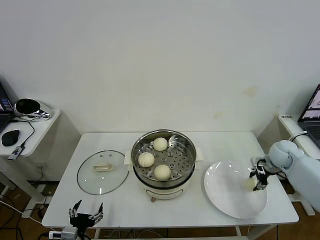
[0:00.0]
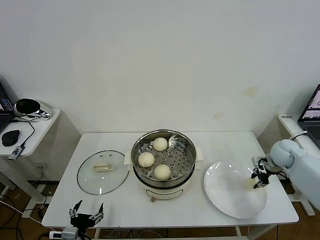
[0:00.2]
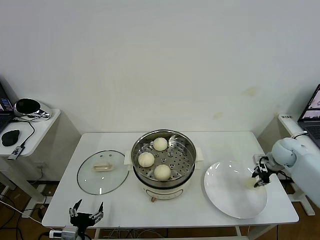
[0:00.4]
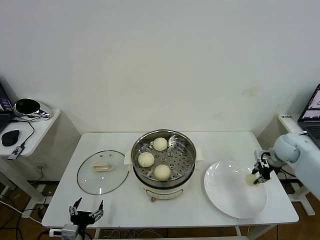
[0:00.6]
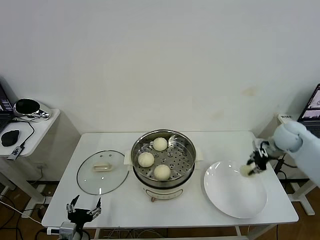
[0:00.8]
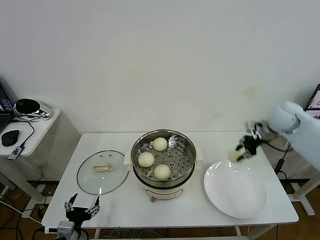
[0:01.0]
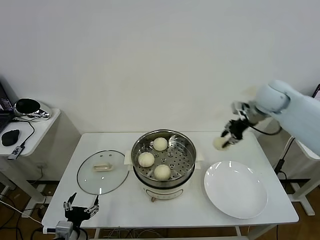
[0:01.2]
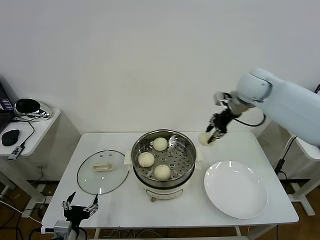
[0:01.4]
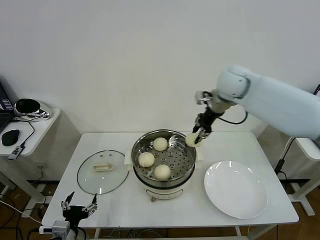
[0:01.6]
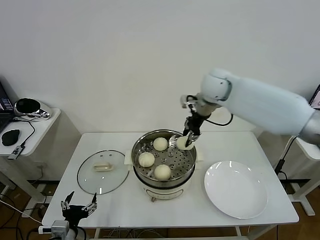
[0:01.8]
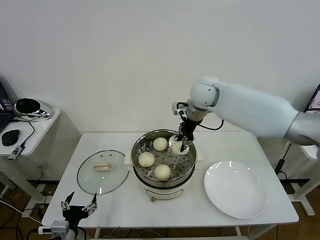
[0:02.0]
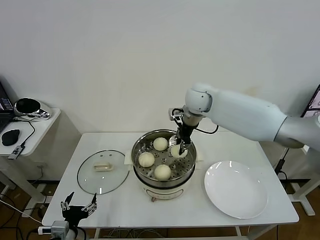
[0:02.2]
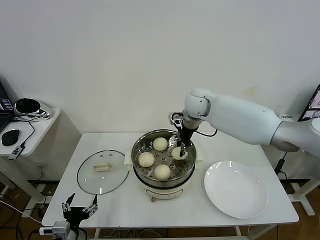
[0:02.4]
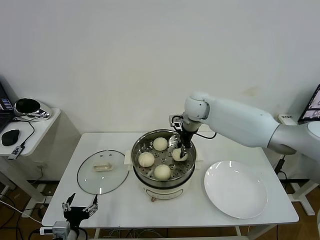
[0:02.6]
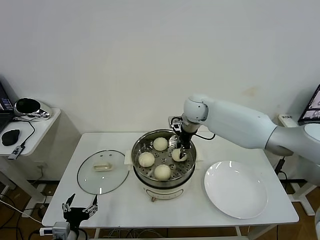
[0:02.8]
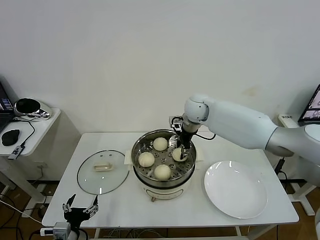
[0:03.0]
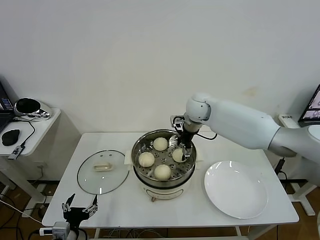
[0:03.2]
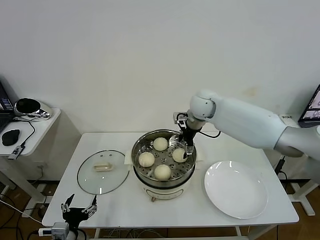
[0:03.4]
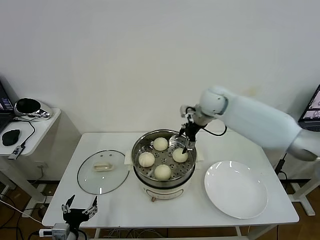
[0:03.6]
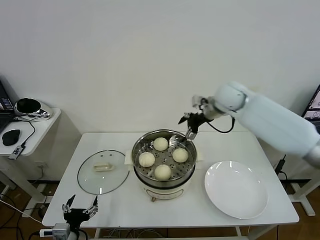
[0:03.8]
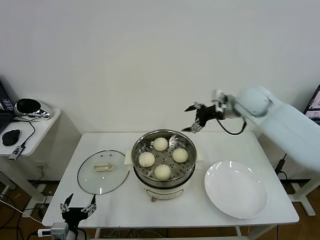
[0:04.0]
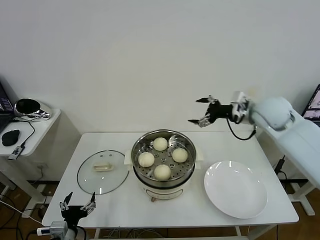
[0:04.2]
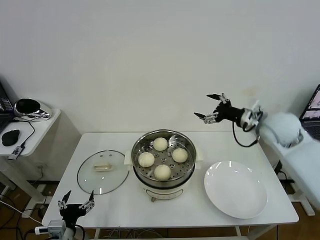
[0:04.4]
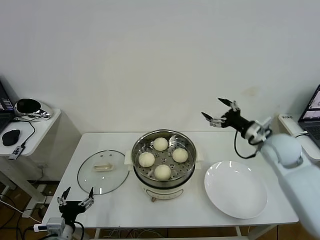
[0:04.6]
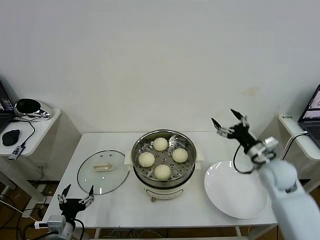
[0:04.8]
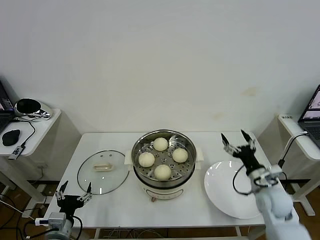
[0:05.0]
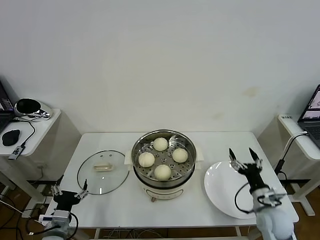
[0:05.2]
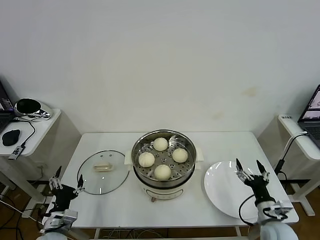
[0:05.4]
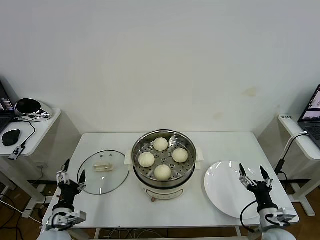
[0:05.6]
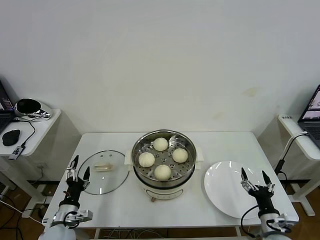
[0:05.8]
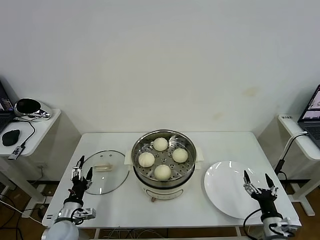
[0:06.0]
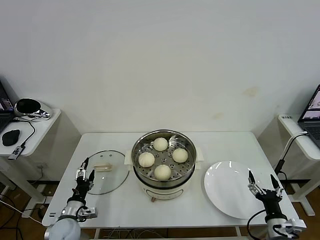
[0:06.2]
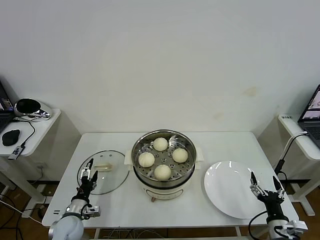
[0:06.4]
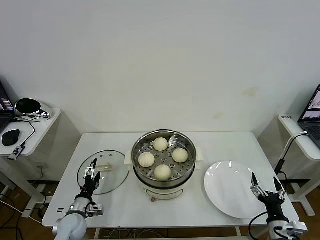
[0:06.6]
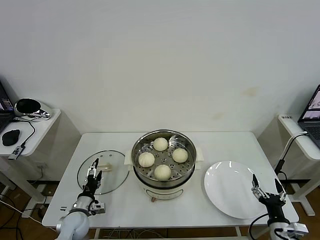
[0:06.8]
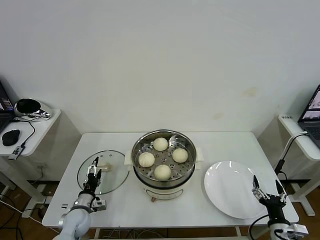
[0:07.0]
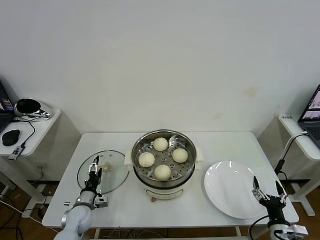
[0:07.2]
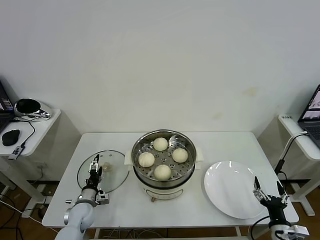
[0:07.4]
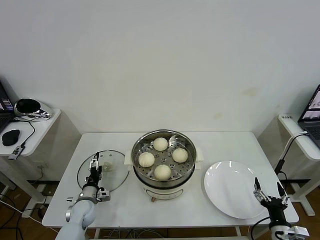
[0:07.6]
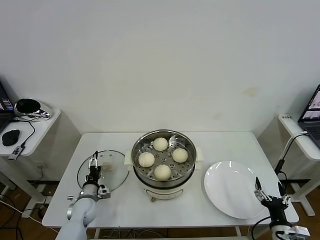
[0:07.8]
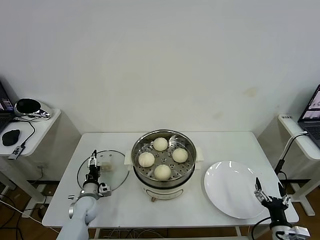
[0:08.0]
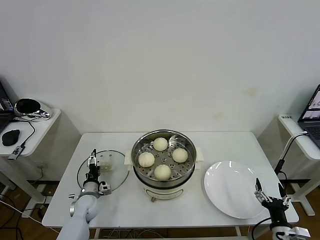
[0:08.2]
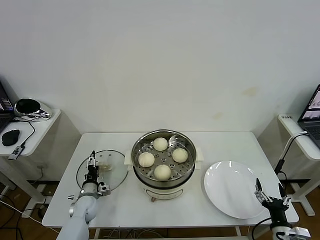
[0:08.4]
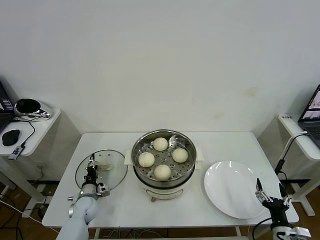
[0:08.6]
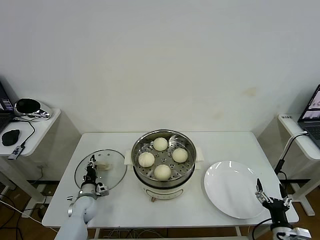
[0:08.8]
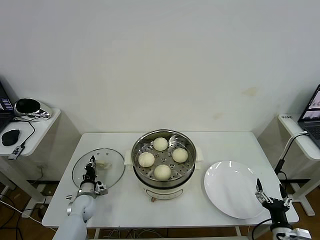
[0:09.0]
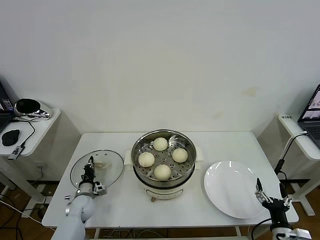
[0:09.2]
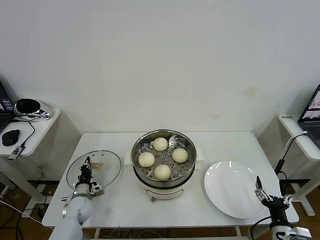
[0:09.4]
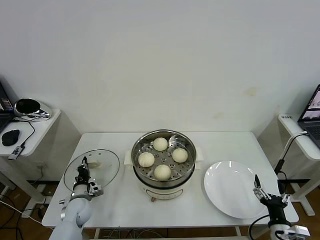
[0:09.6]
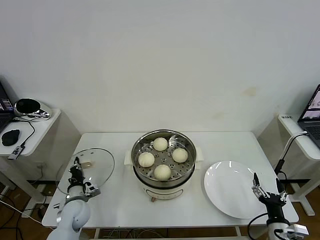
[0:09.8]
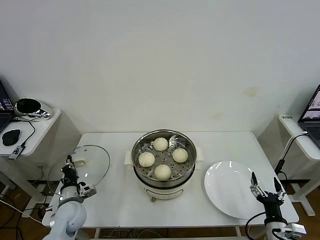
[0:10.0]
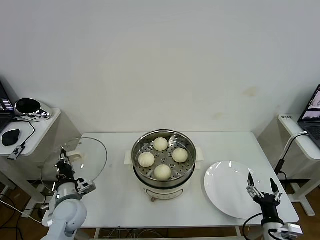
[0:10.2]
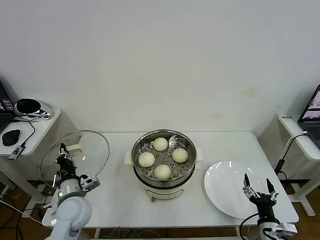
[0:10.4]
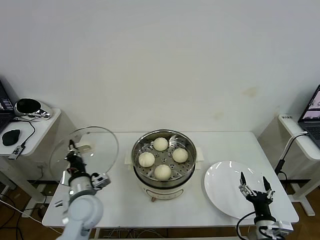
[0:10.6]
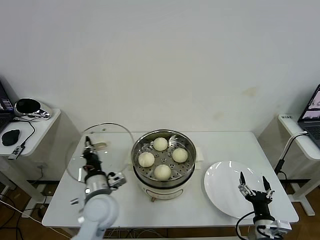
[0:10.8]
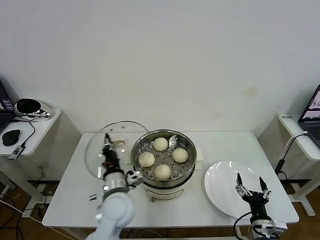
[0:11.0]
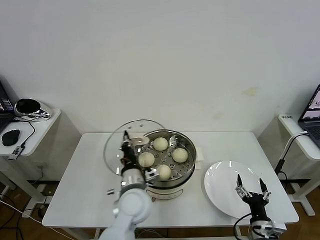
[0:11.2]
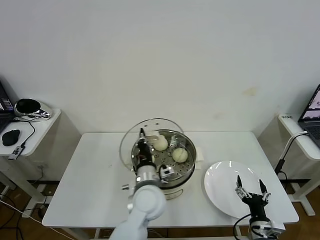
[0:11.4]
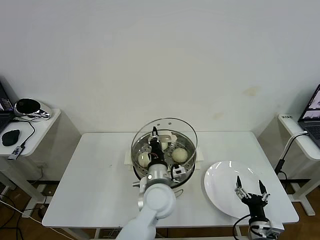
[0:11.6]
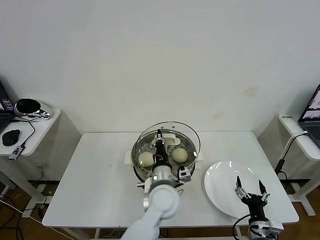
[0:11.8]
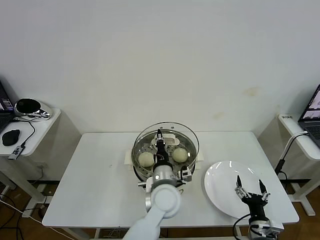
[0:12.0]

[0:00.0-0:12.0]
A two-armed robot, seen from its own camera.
Task of the whole recording: take steamed baozi put them in steamer then cover it.
Step, 0:00.4 to 0:03.2: Place the baozi on the steamer with right gripper.
Step, 0:03.4 to 0:09.2: Grasp the pot lid with left gripper.
0:00.0 to 0:01.6: The right gripper travels to the left and upward by approximately 35 cm, and closes up.
0:01.6 to 0:03.0: The right gripper goes approximately 15 cm downward and to the left, and opens.
0:03.0 to 0:04.4: The right gripper travels to the right and backward by some 25 cm, and opens its fingers.
0:04.4 to 0:06.0: The right gripper is displaced downward and backward by approximately 35 cm. The left gripper heads forward, covering some 10 cm.
0:06.0 to 0:07.6: The left gripper travels forward and downward by some 10 cm.
0:07.6 to 0:09.0: The left gripper closes its fingers.
0:09.0 to 0:10.4: The left gripper moves upward and backward, roughly 20 cm.
0:10.4 to 0:12.0: The left gripper travels to the right by some 30 cm.

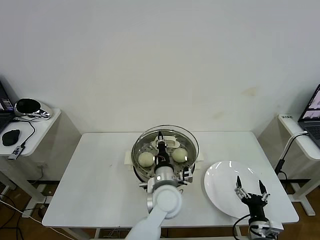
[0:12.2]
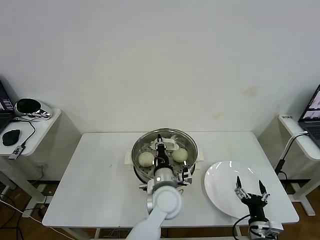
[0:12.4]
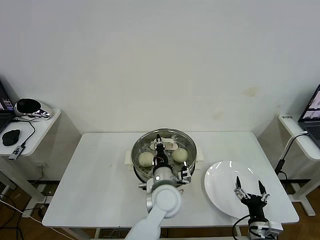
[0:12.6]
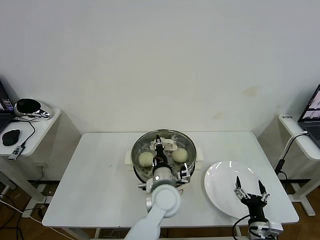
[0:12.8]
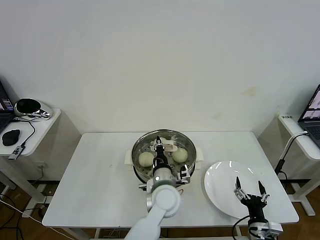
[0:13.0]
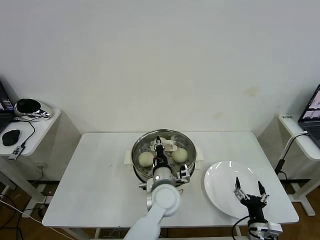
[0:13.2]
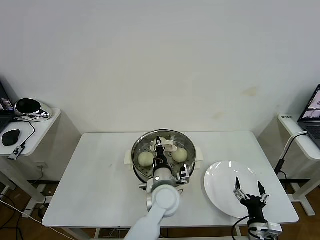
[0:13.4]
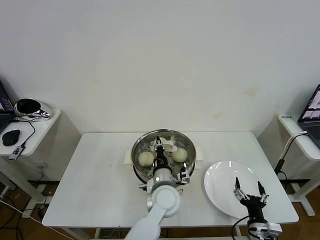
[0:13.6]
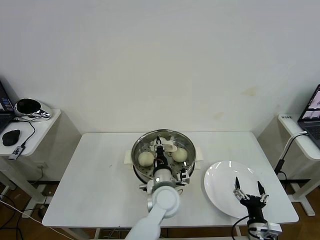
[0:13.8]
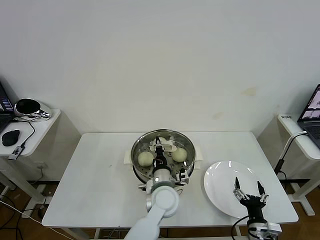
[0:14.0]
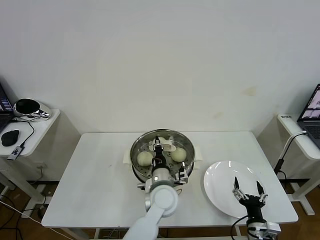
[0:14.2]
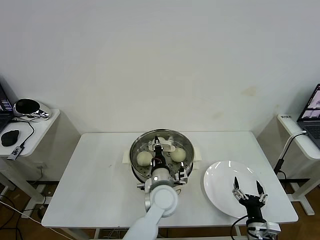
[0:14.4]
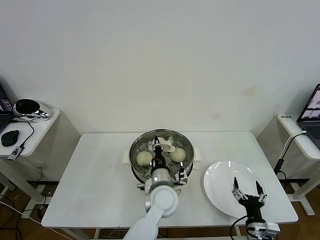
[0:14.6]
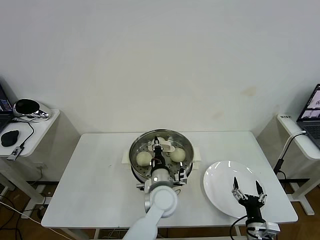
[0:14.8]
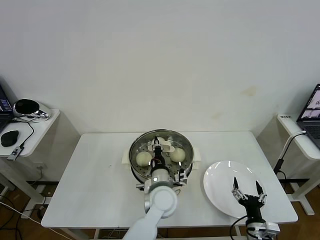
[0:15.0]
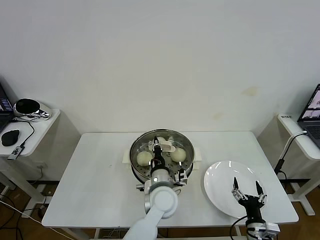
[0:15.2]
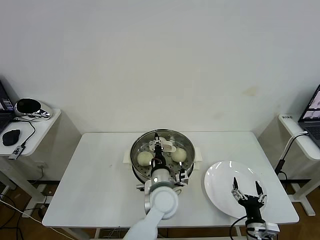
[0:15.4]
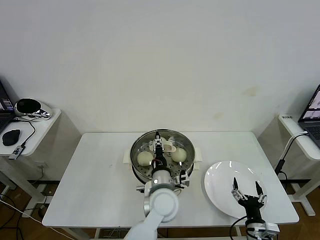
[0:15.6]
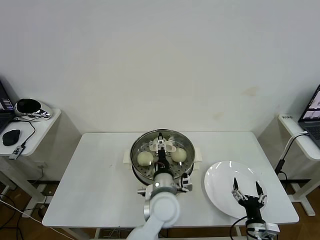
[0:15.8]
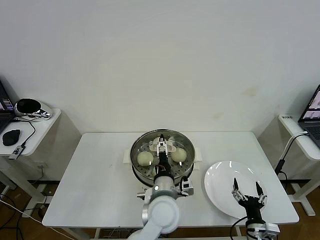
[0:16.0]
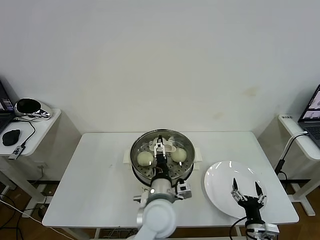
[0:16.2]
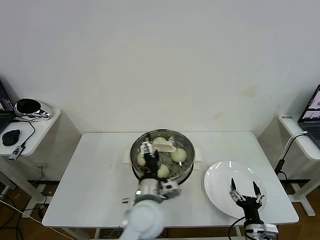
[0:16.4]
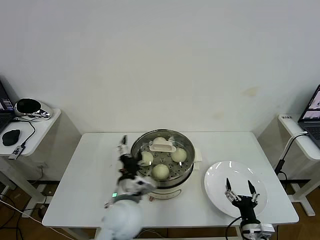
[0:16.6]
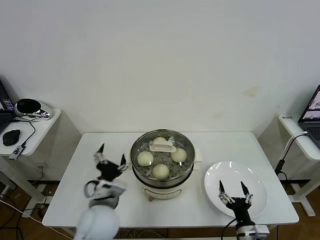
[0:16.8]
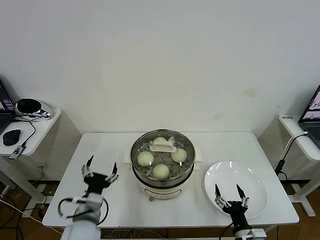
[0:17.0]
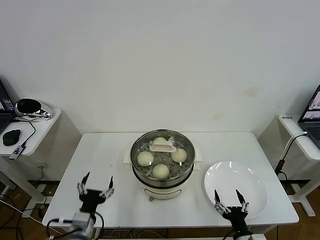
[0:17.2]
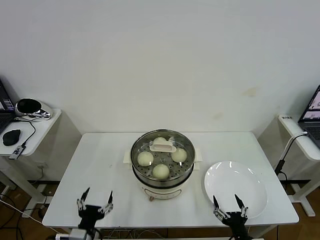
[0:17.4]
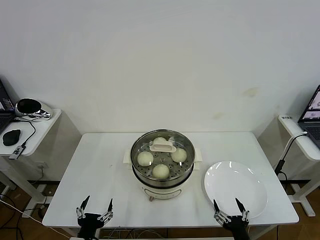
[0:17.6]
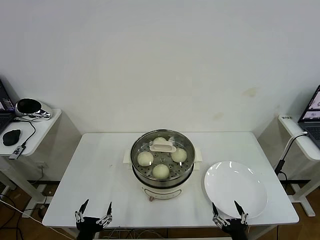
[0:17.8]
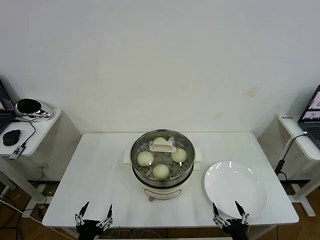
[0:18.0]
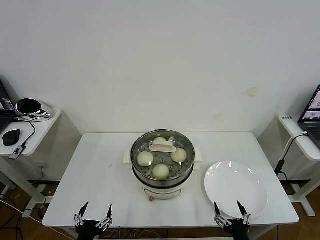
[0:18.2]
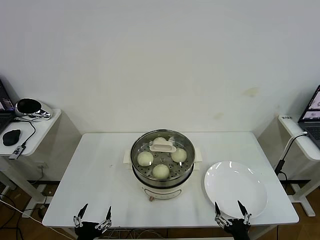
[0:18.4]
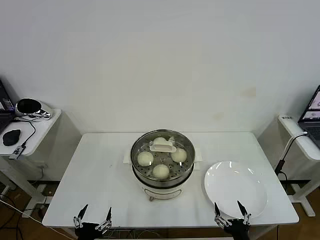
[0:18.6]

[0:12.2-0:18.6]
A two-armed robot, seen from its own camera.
Task of the whole recording: take steamed baozi put them in steamer then cover it.
Step, 0:12.2 to 0:15.6: Place the pot lid on the steamer with left gripper.
0:12.2 to 0:13.8: The grippers stay close to where they were, moving slightly.
0:13.8 to 0:15.4: The two grippers keep their place.
0:15.4 to 0:17.0: The left gripper is displaced to the left and backward by some 20 cm, and opens its fingers.
0:17.0 to 0:18.6: The left gripper goes some 15 cm backward and downward. Meanwhile the right gripper moves backward, about 5 cm.
